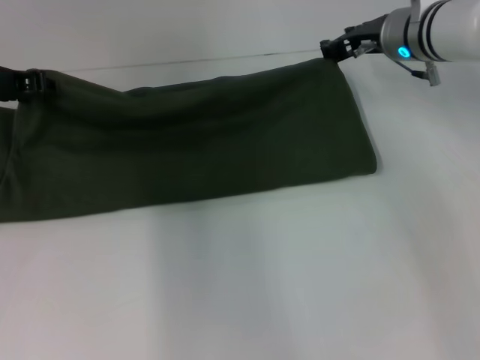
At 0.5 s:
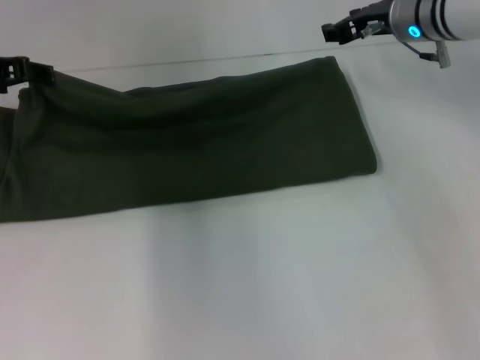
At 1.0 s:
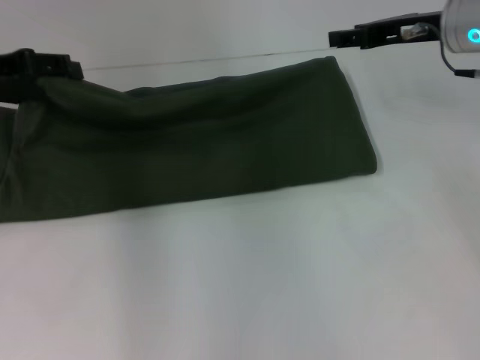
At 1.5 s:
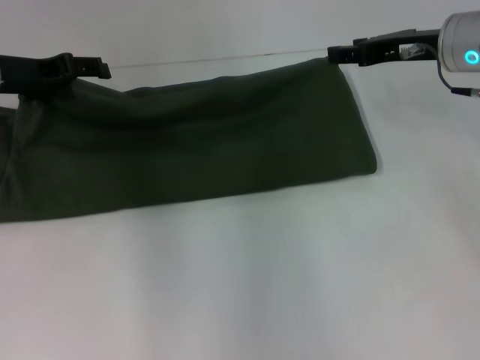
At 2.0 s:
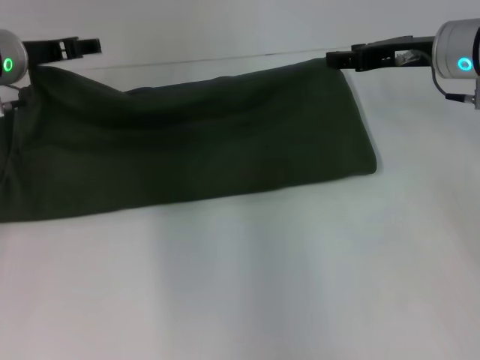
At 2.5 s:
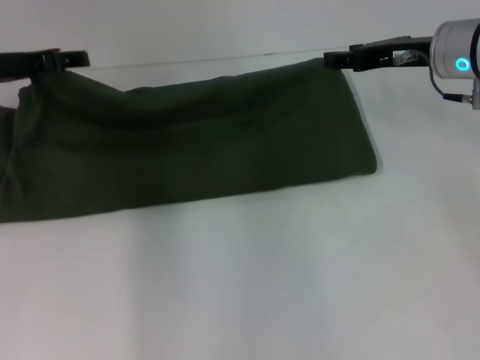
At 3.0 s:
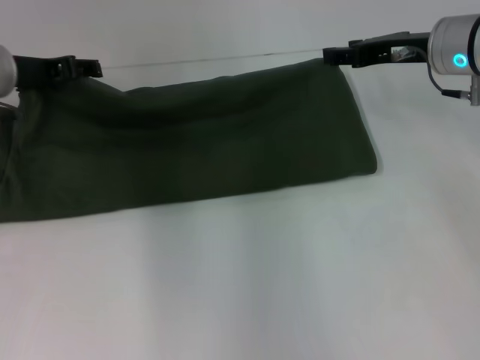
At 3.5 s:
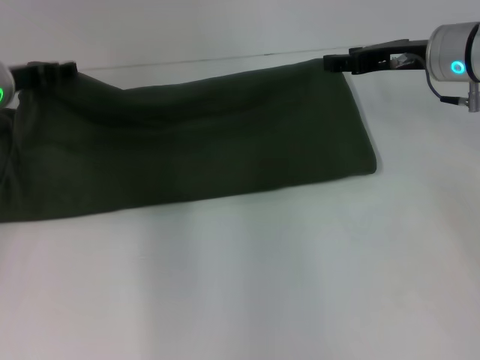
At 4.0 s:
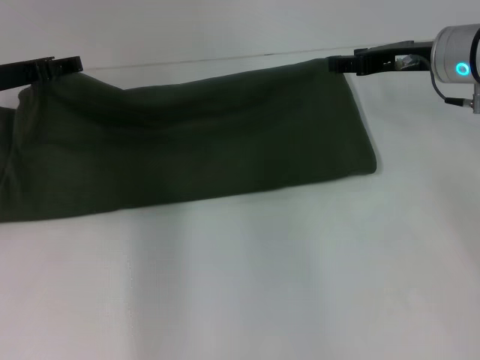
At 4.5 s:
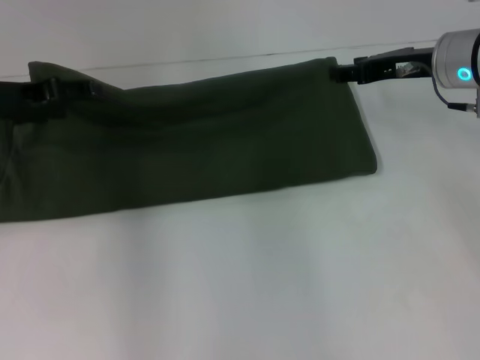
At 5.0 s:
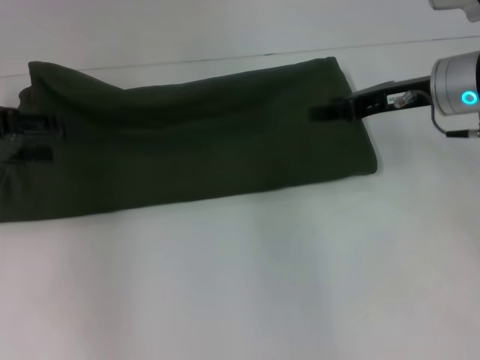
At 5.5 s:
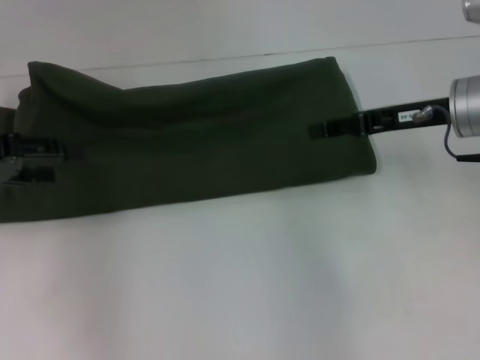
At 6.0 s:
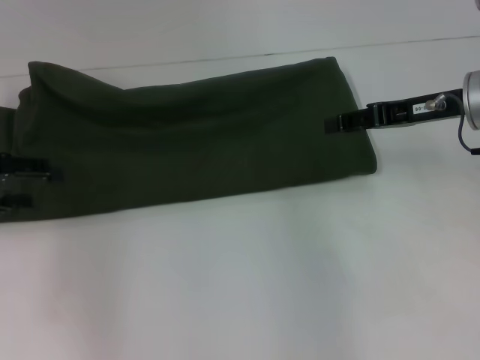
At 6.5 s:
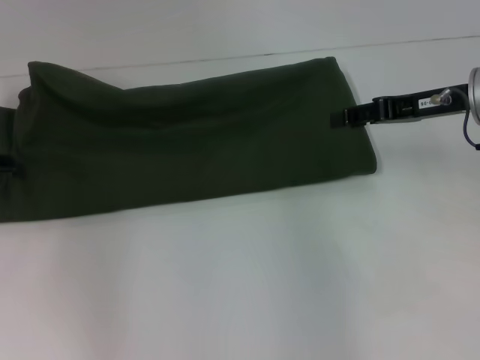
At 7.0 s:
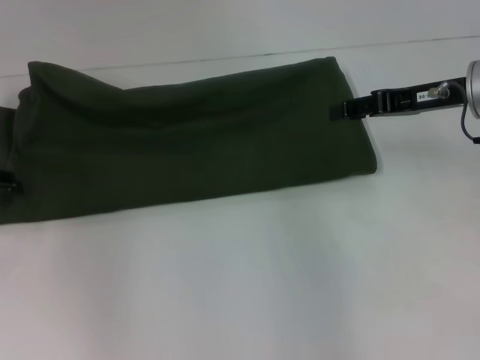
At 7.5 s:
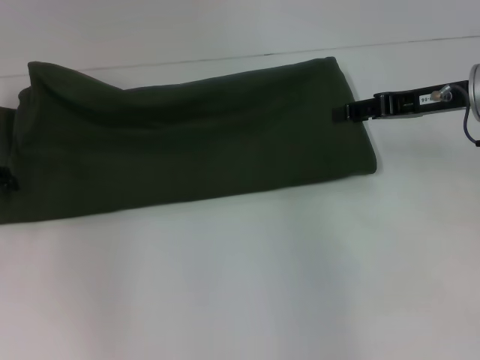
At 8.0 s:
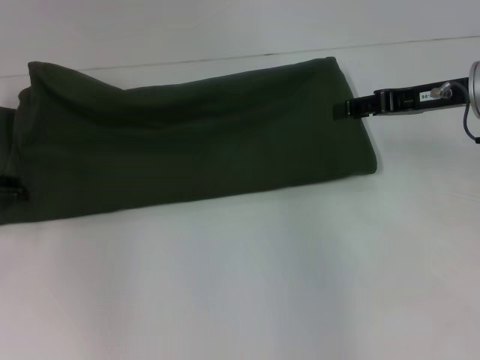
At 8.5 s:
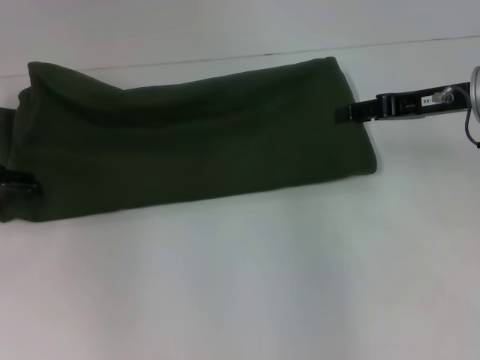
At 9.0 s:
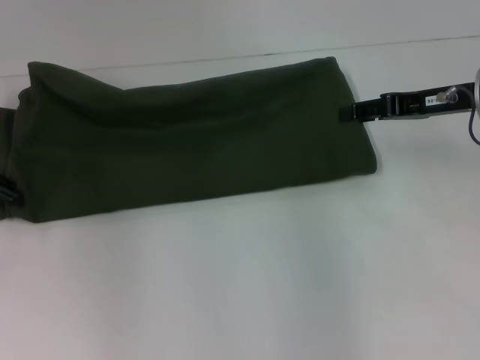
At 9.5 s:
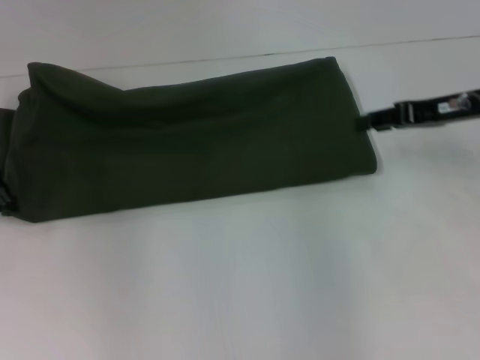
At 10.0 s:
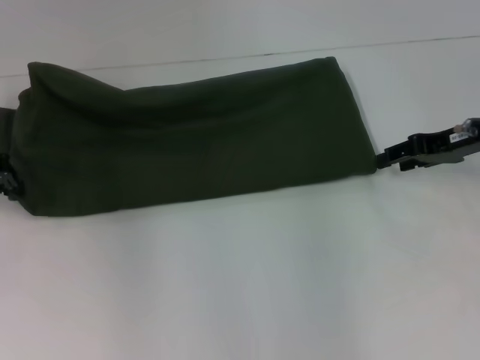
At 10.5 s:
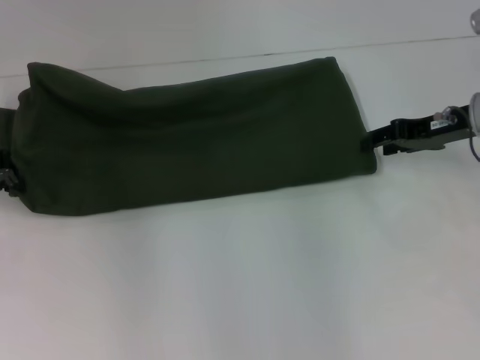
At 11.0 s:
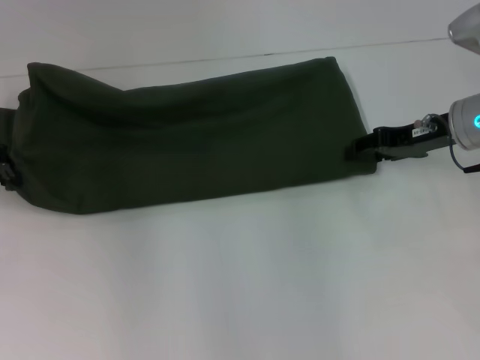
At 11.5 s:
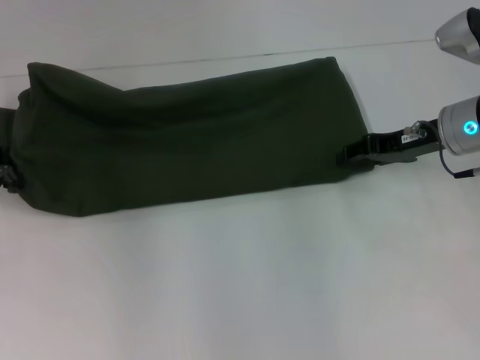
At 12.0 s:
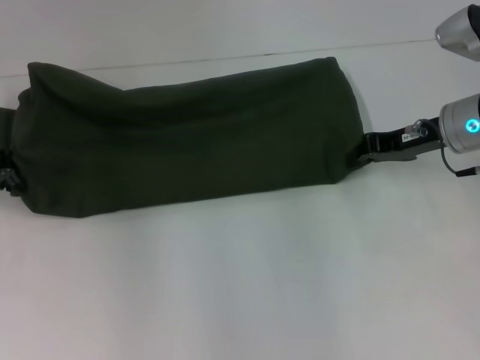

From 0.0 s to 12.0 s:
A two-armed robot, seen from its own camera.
From 0.0 s to 2.0 s: The right gripper shifts approximately 5 cm backward. Meanwhile the left gripper opens up.
From 2.0 s to 4.0 s: The left gripper is displaced backward by approximately 5 cm.
From 4.0 s to 6.0 s: The left gripper goes roughly 10 cm to the left and backward.
From 6.0 s to 8.0 s: The grippers stay close to where they were, moving slightly.
From 8.0 s to 10.0 s: The left gripper closes its fingers.
From 10.0 s to 12.0 s: The right gripper closes.

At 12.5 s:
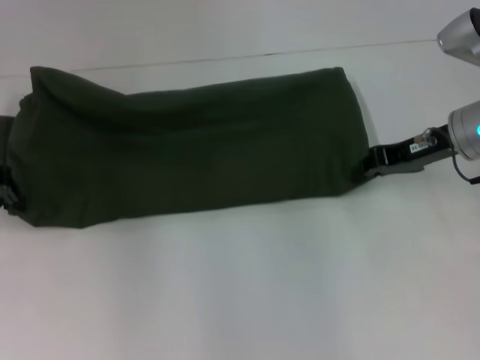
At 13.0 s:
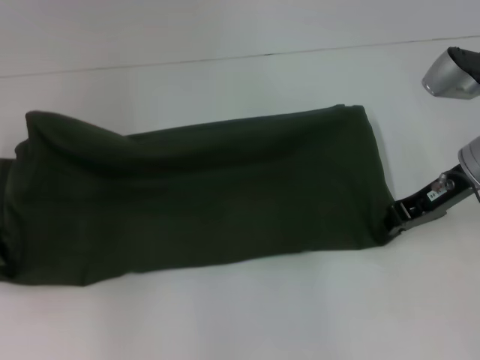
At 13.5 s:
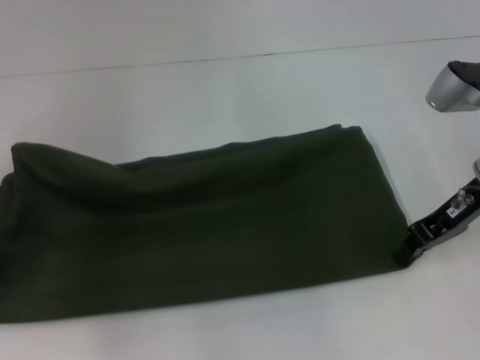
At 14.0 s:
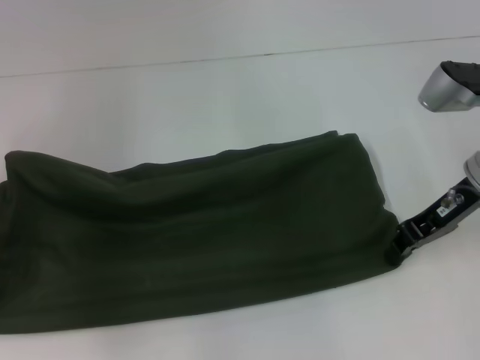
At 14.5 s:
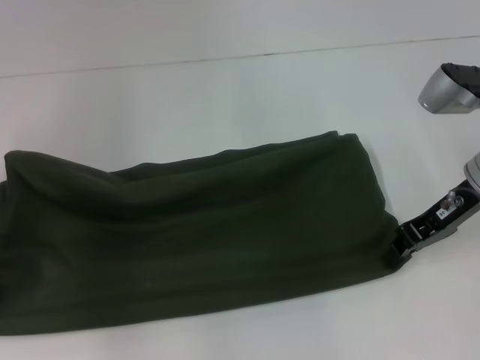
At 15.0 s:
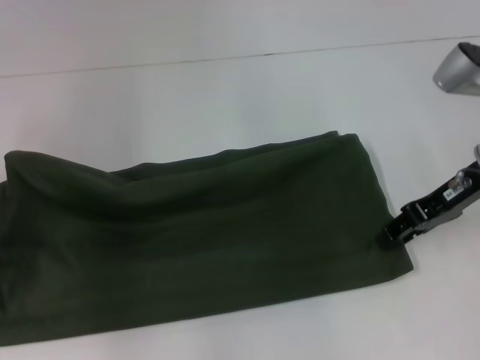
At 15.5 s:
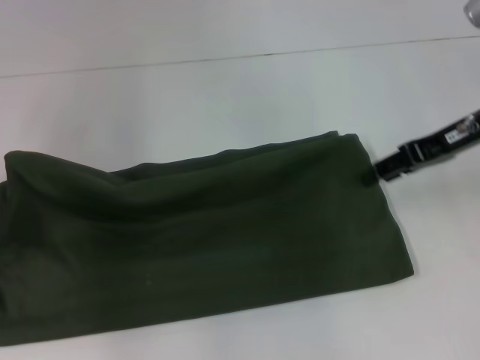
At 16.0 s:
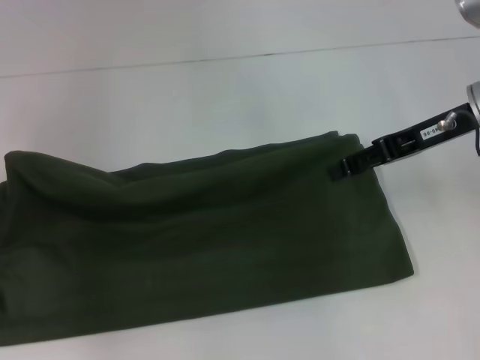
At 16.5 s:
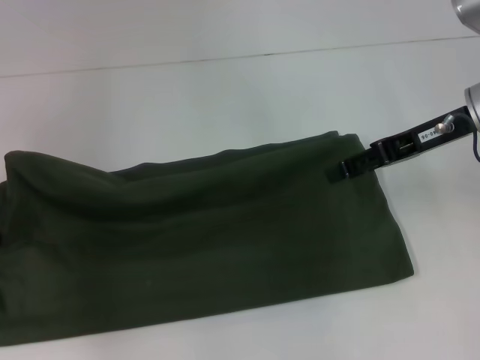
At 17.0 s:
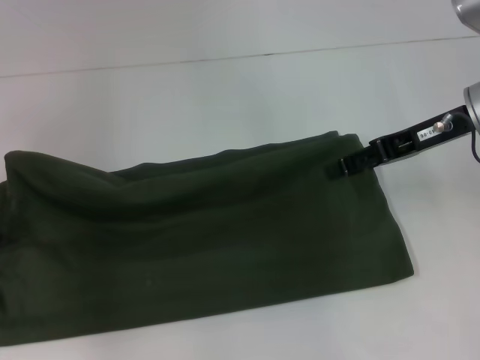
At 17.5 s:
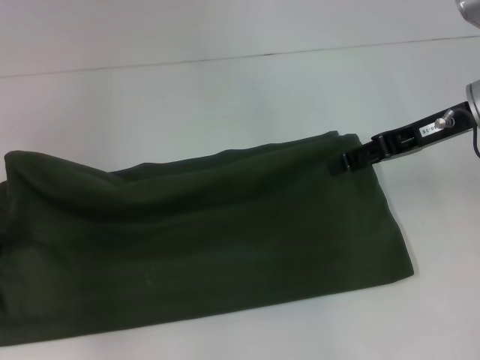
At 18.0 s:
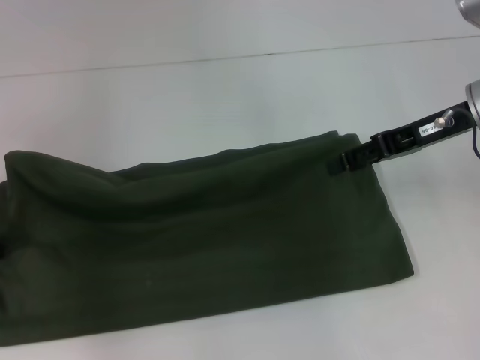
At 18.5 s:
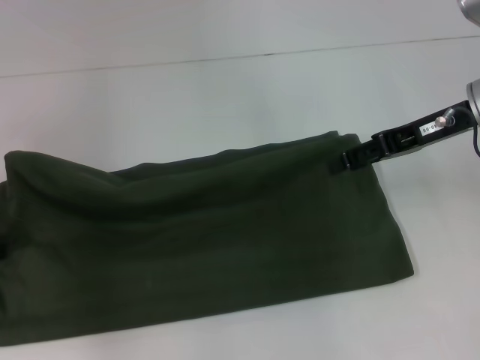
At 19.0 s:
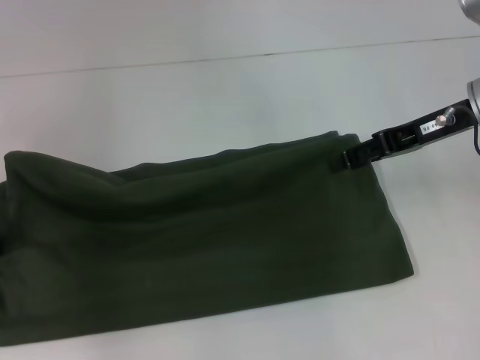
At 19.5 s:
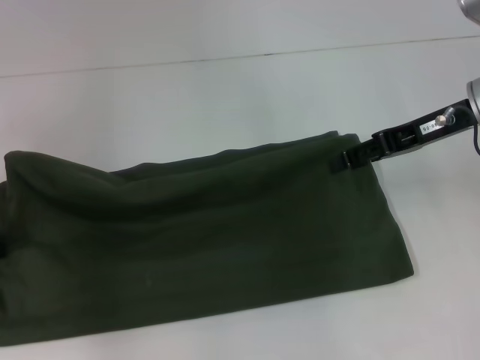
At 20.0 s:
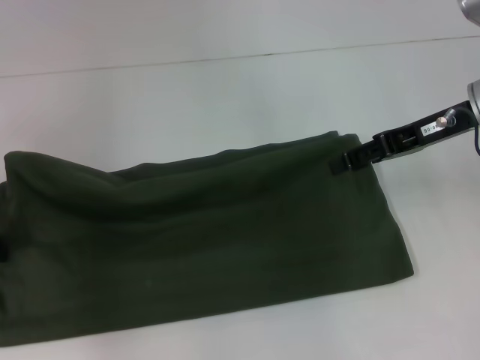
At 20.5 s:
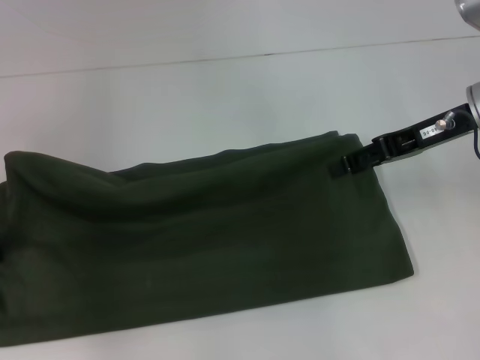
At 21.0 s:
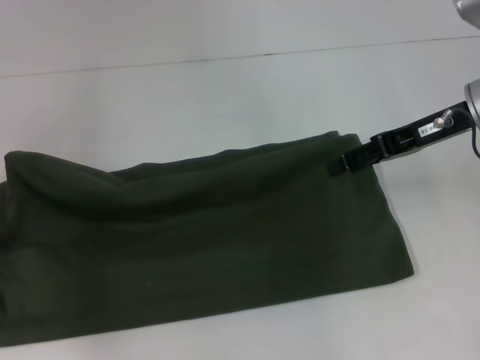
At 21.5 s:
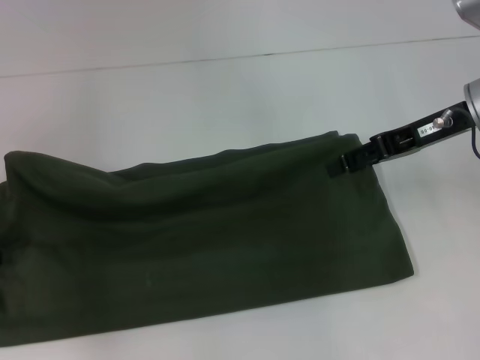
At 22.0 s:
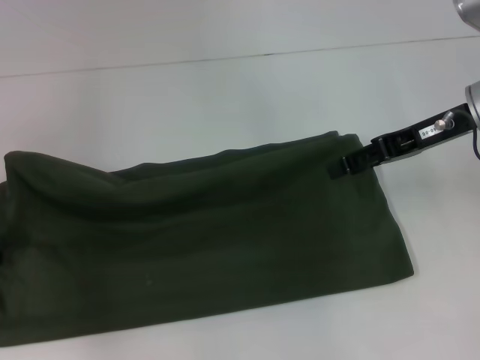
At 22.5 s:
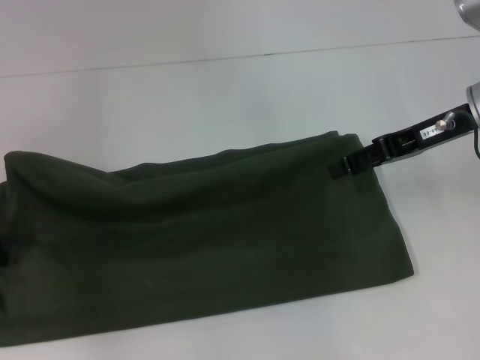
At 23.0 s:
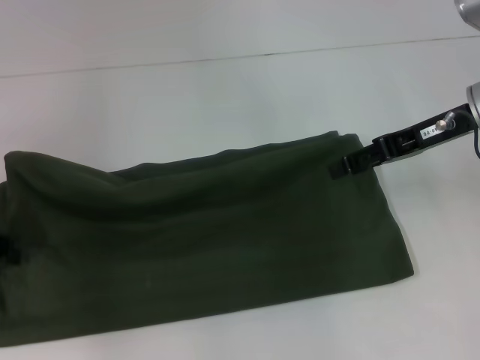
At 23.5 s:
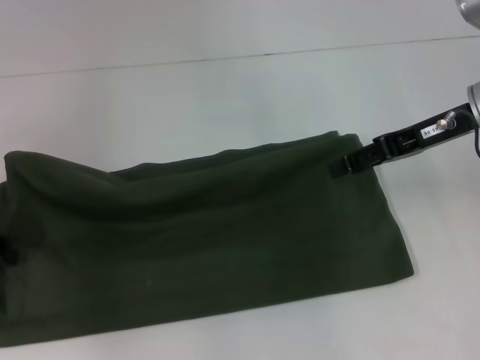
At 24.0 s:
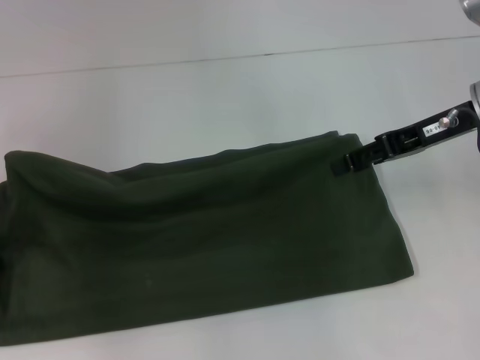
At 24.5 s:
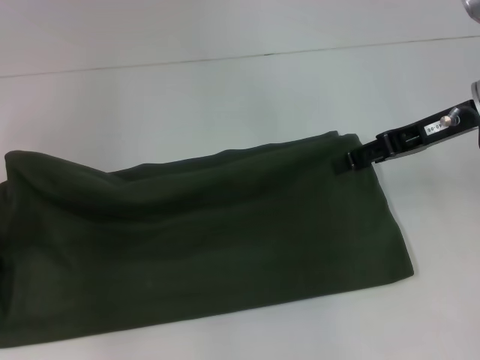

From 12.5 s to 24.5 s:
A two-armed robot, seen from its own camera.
From 12.5 s to 14.5 s: The left gripper is displaced backward by approximately 5 cm.
From 14.5 s to 16.5 s: The right gripper ends up about 5 cm from where it was, and opens its fingers. Meanwhile the left gripper opens its fingers.
From 16.5 s to 18.5 s: The grippers stay close to where they were, moving slightly.
From 18.5 s to 20.5 s: The two grippers keep their place.

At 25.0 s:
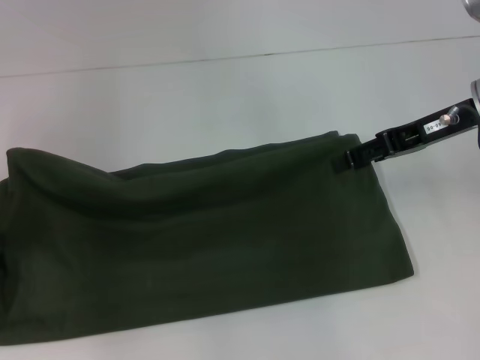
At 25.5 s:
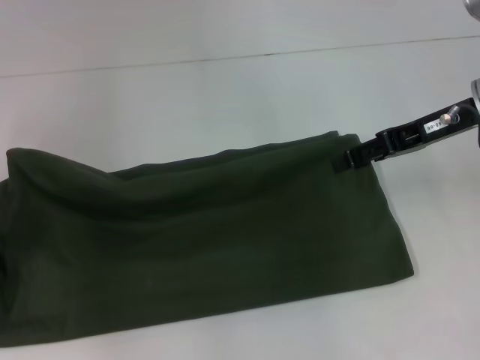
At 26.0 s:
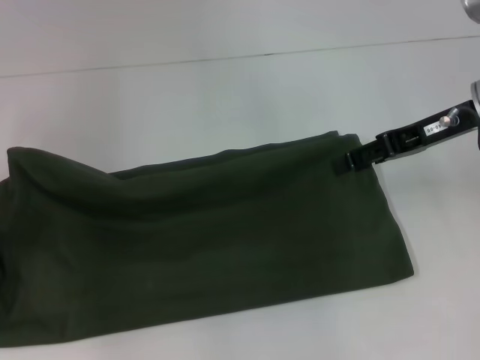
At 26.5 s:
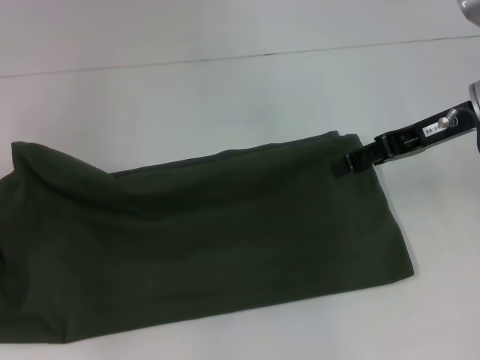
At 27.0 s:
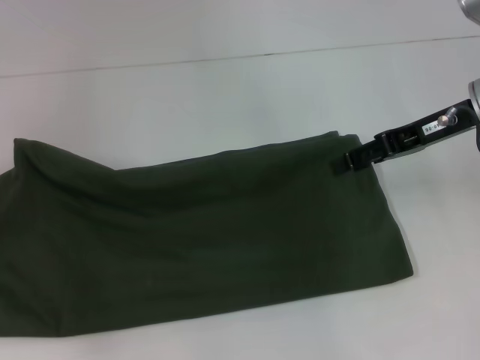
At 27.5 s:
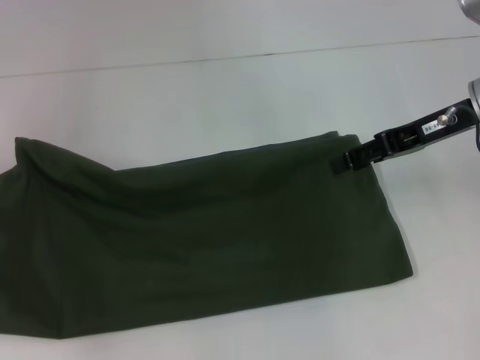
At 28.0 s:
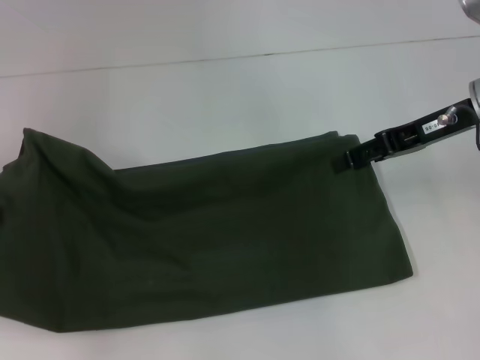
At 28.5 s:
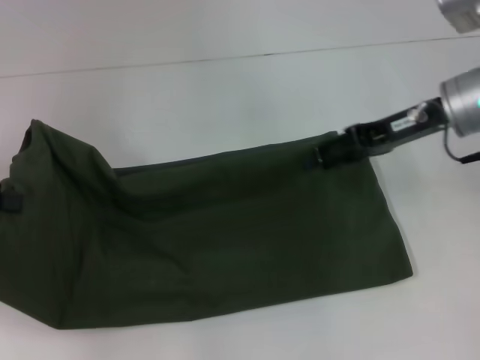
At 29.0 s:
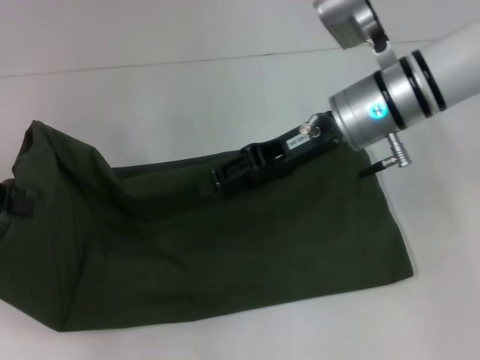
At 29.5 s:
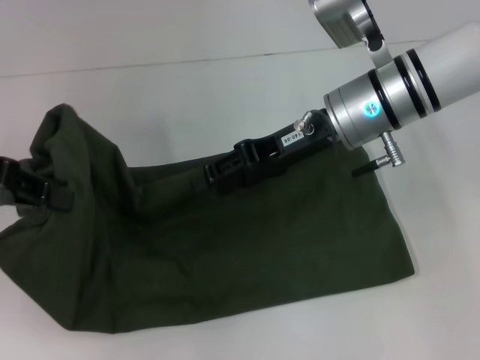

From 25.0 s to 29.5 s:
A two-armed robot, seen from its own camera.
From 25.0 s to 27.0 s: The grippers stay close to where they were, moving slightly.
From 27.0 s to 29.5 s: The left gripper shifts approximately 5 cm to the right. Meanwhile the right gripper moves to the left, approximately 15 cm.
